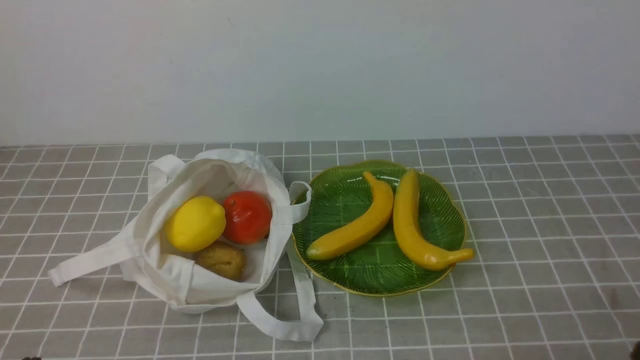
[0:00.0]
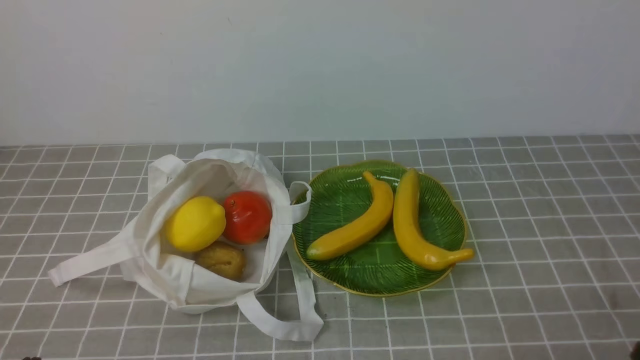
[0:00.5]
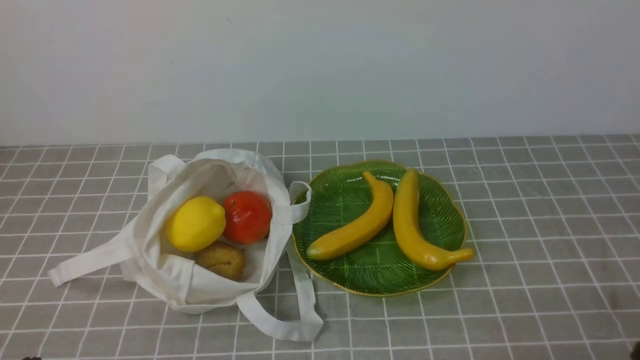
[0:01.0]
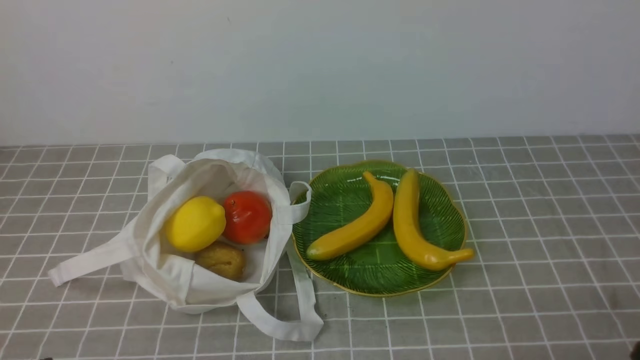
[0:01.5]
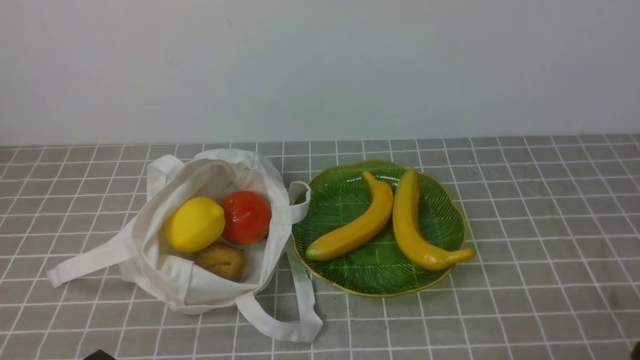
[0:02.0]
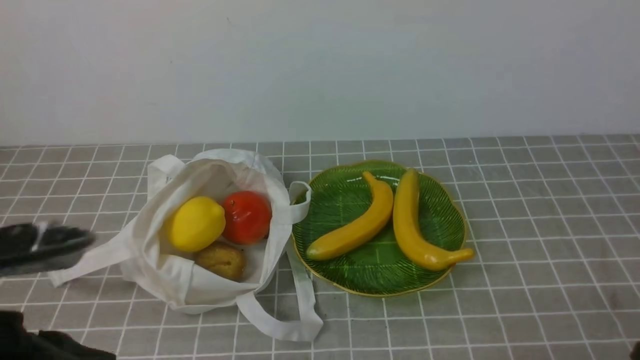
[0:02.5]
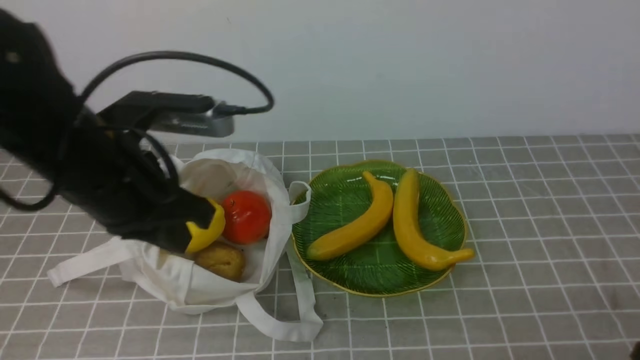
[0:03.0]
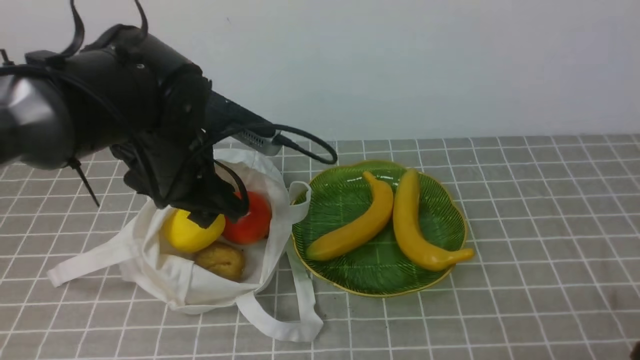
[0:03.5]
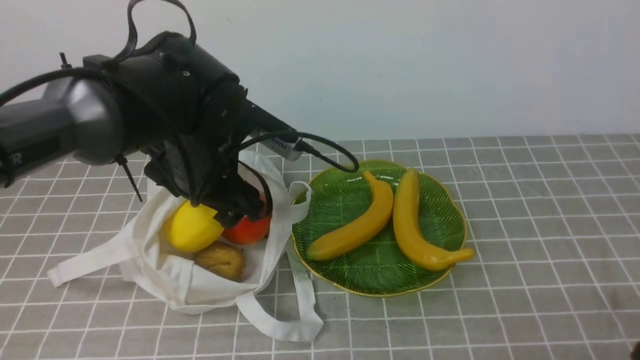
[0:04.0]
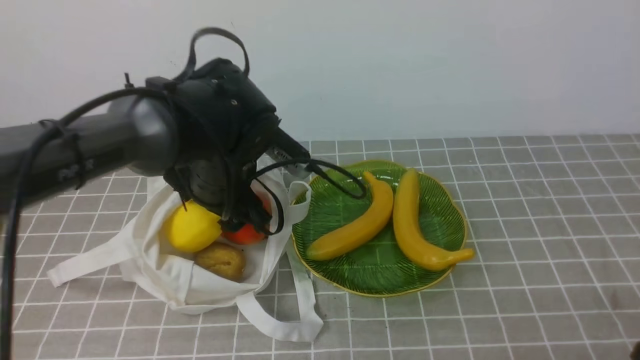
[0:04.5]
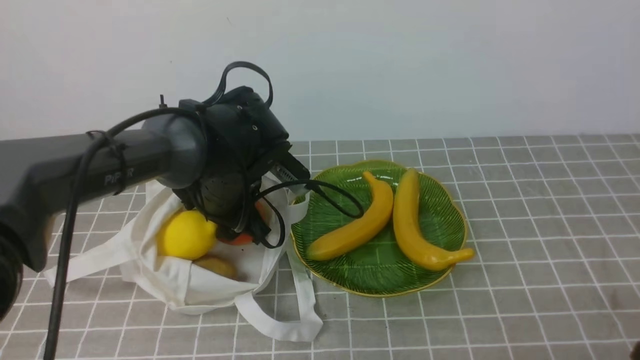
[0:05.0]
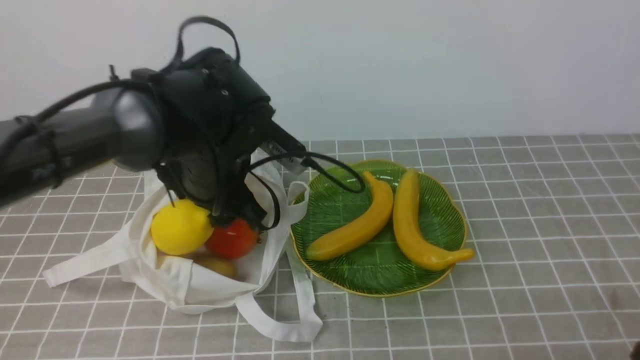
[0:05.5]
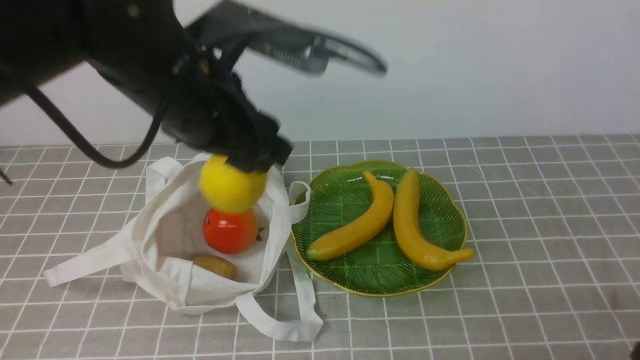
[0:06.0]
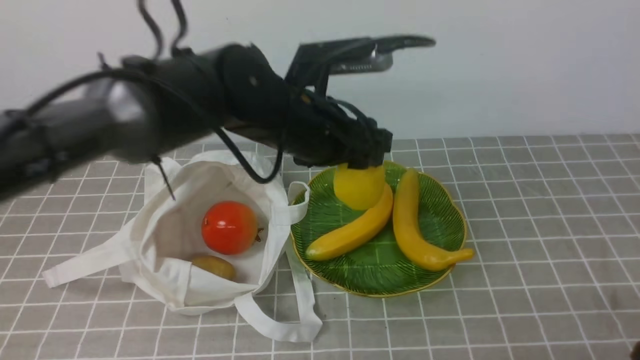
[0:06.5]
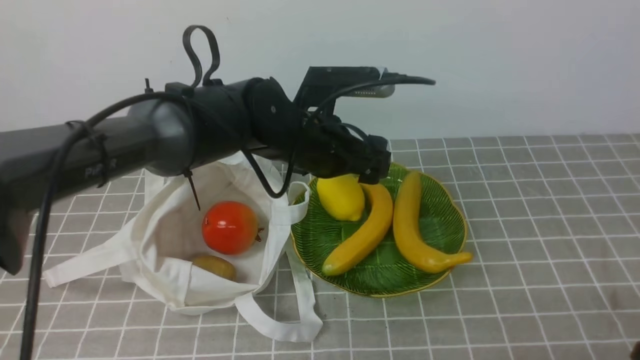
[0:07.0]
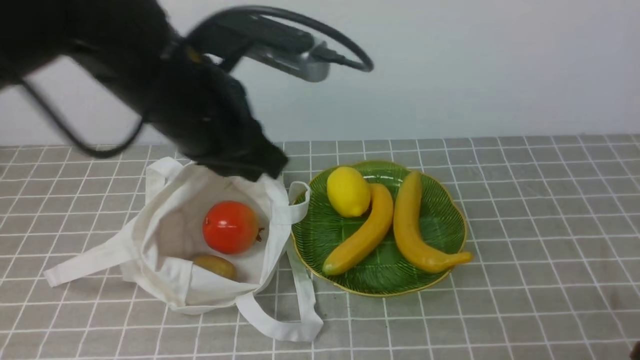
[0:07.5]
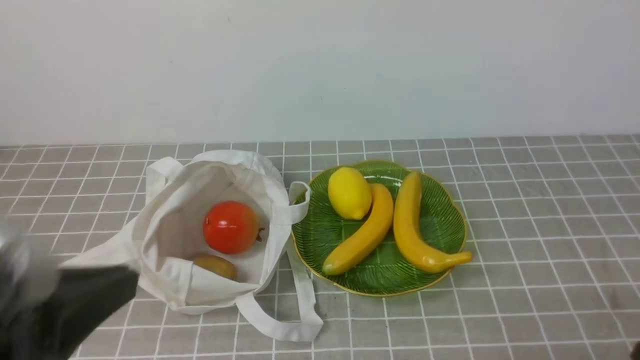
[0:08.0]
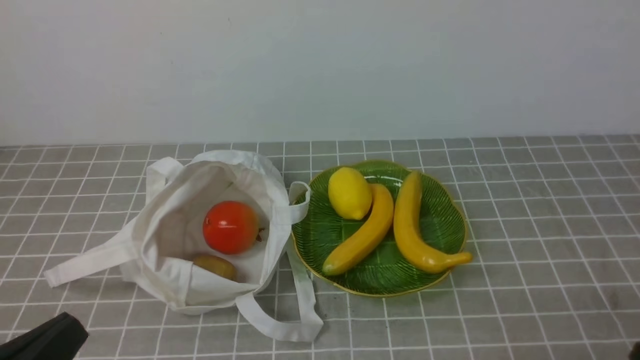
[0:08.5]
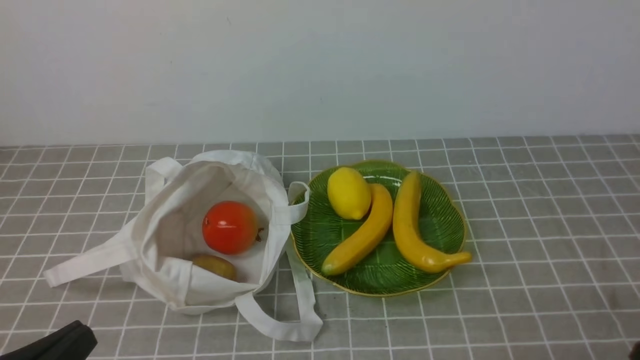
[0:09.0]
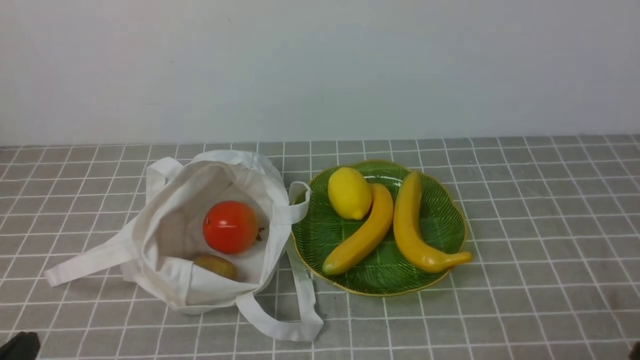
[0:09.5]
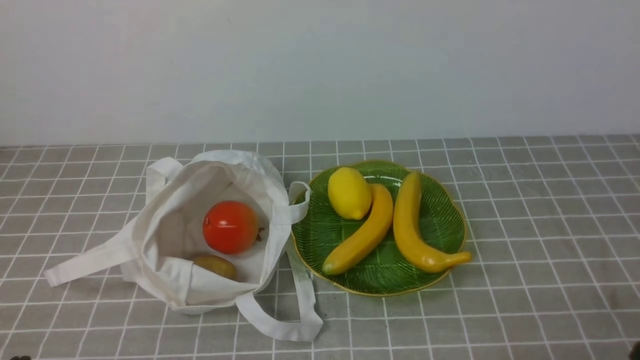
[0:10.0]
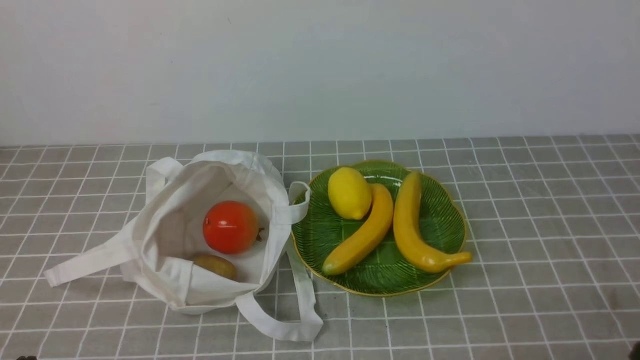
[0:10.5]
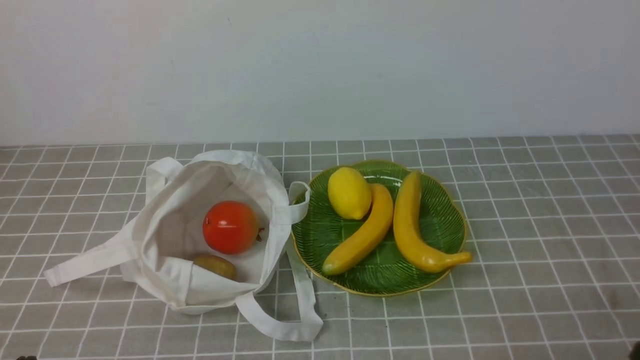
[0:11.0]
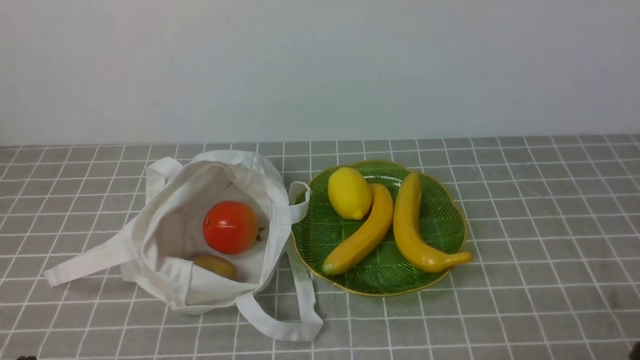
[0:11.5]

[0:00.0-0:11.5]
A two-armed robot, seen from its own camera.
Step, 0:00.0 to 0:04.5: use the left arm to grab a lemon from the bag.
Step, 0:05.5 to 0:07.0: use the left arm to put the lemon into the empty plate on the right.
0:02.0 to 0:04.0: The left gripper moves forward, roughly 30 cm, and opens up.
0:04.0 to 0:06.0: The left gripper moves upward, approximately 10 cm.
0:06.0 to 0:07.5: The left gripper goes downward and returns, some 10 cm each way, and closes up.
0:07.5 to 0:09.5: The left gripper shifts approximately 35 cm backward, to the left and downward.
